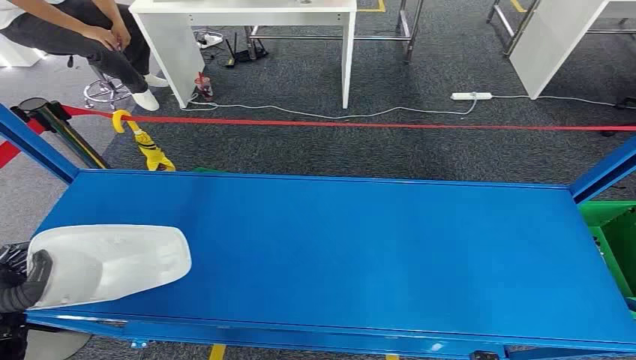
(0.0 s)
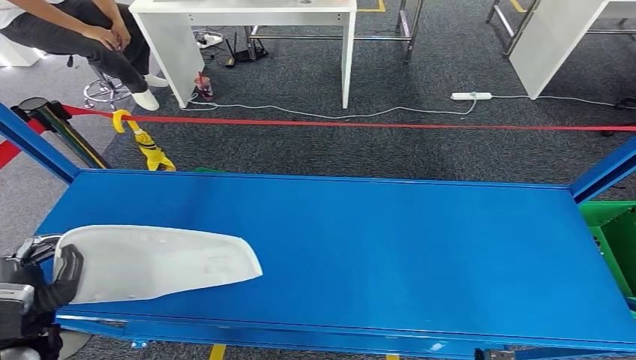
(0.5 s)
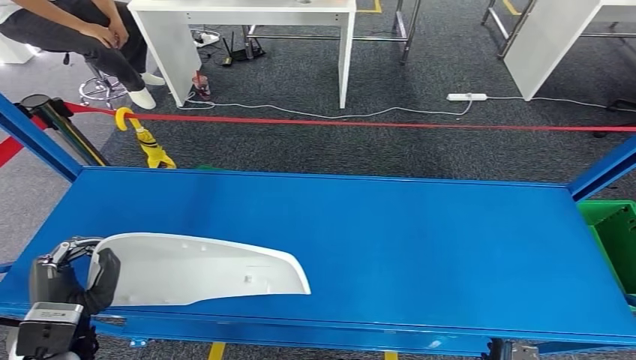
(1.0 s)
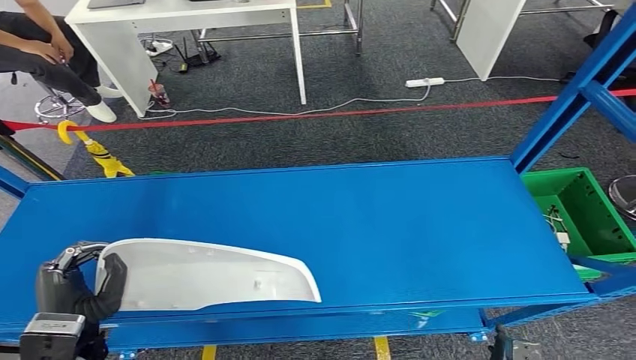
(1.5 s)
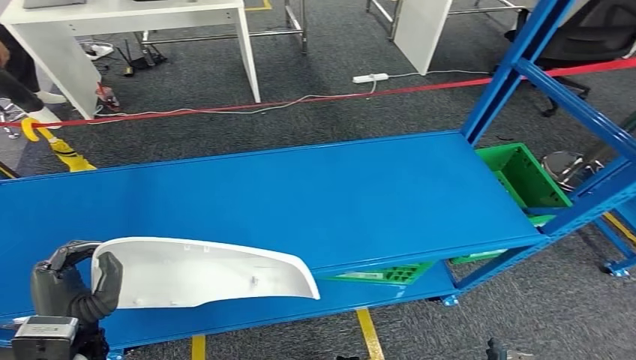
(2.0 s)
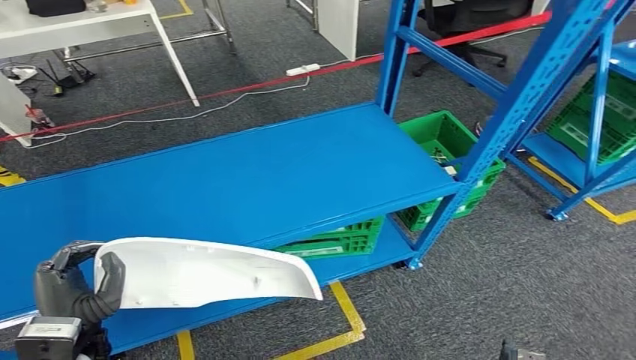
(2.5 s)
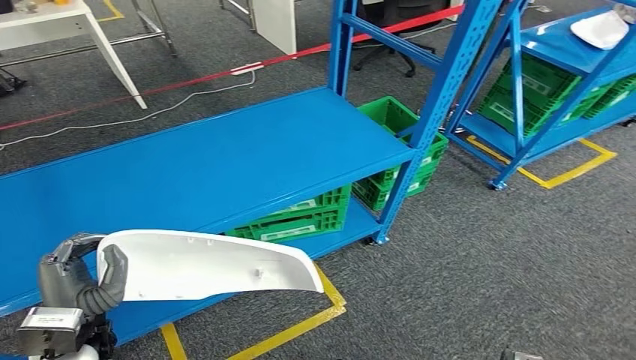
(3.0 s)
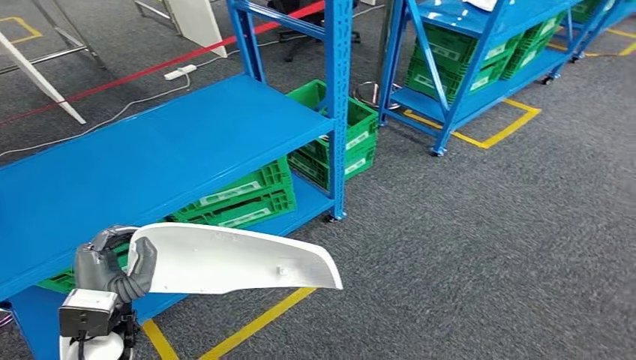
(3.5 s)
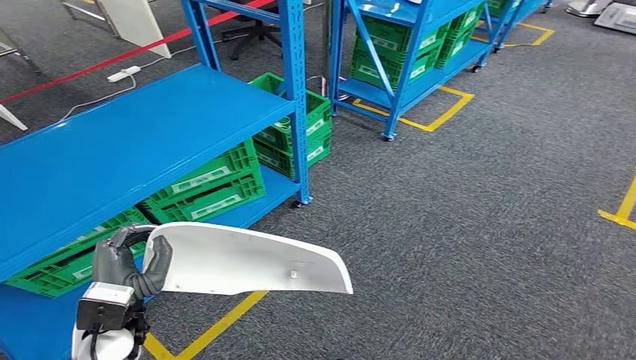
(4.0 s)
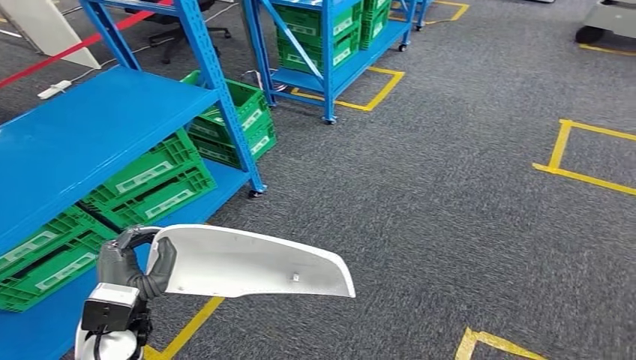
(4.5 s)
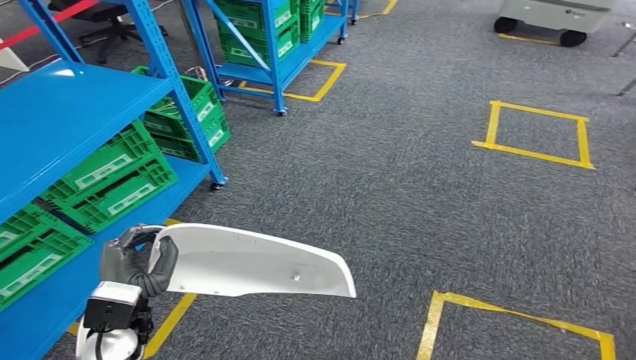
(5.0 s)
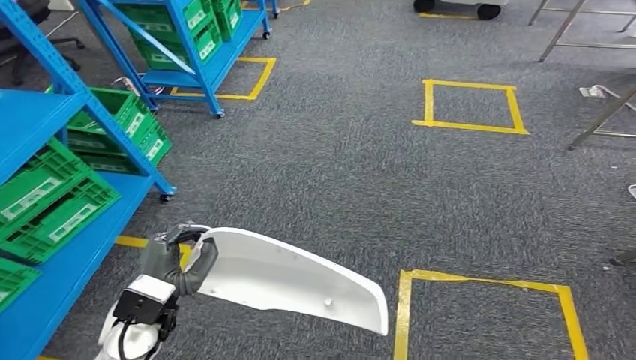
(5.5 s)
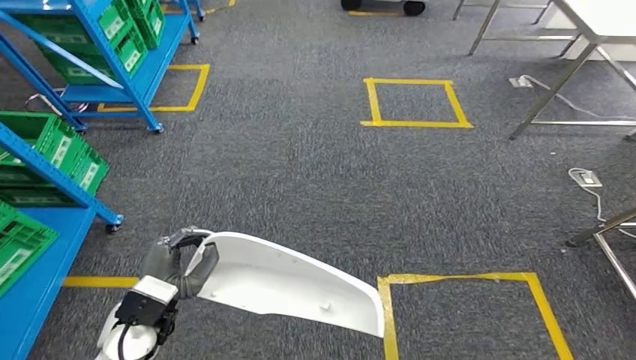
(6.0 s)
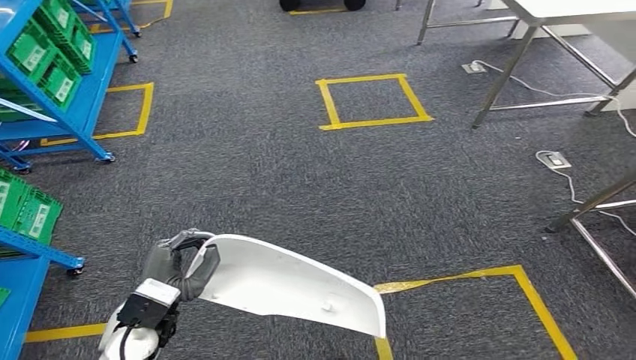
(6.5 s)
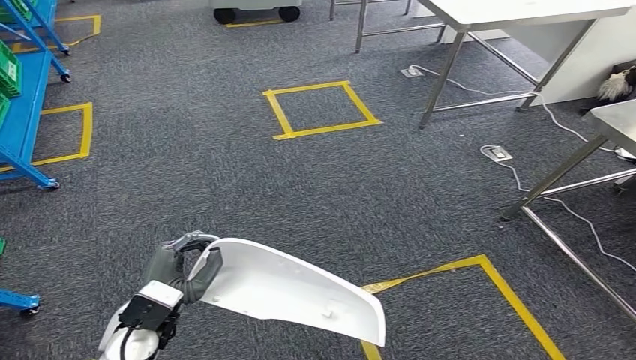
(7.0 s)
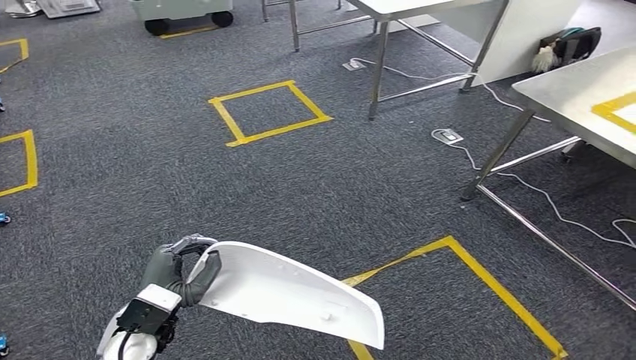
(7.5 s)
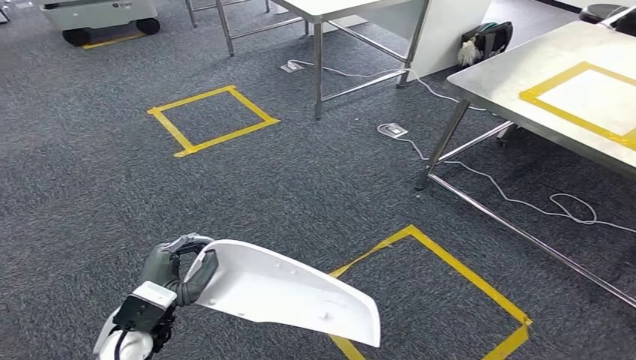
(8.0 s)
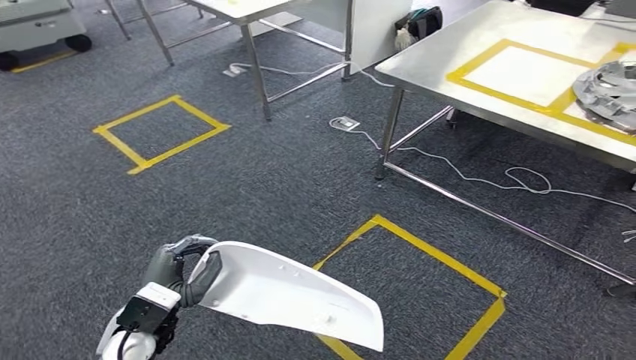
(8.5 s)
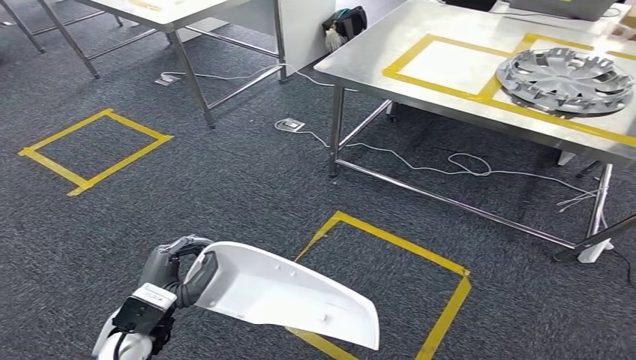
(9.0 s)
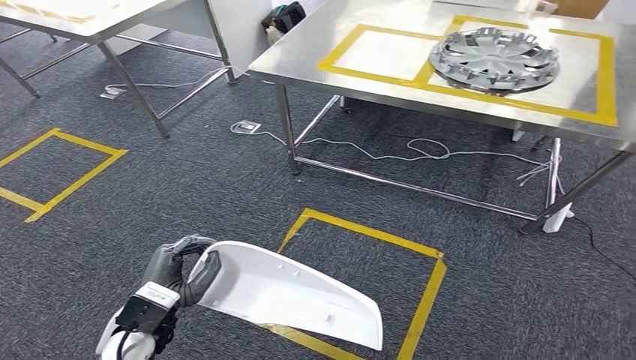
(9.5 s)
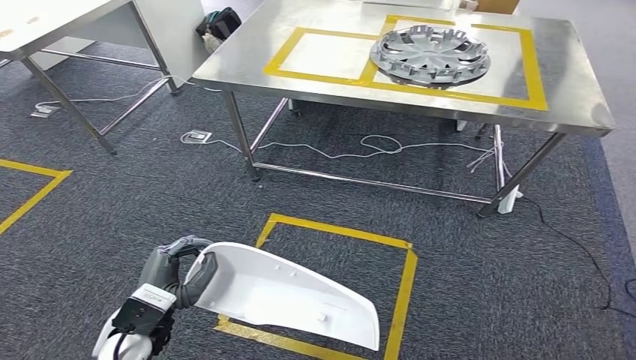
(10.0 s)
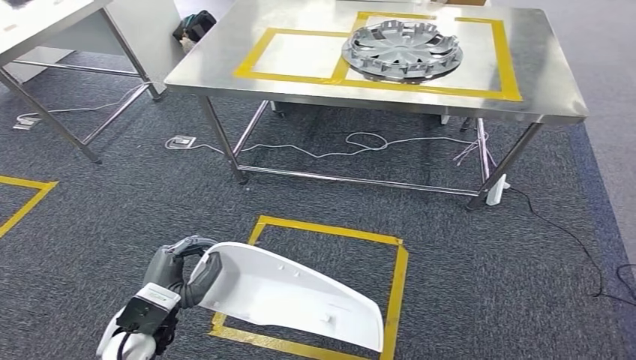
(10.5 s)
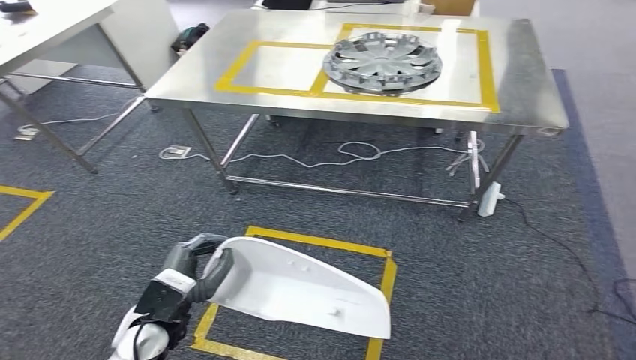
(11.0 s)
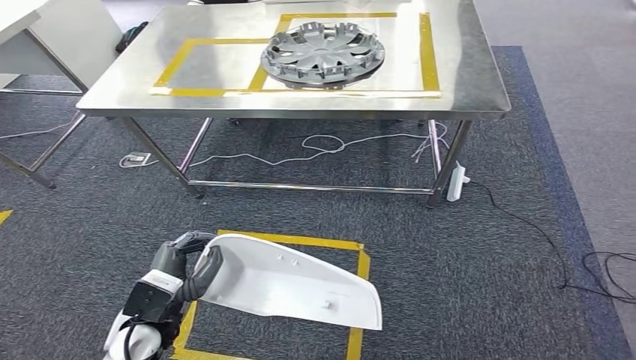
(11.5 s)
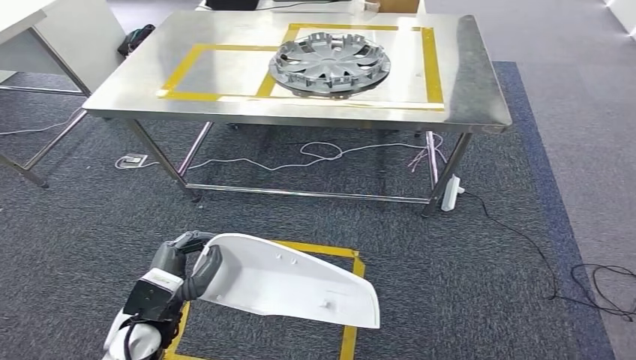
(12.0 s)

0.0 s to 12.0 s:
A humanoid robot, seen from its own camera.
Step, 0.0 to 2.0 s: Pick up the small parts from the shelf.
Step, 2.5 to 11.5 s: Move the small parts to the workbench.

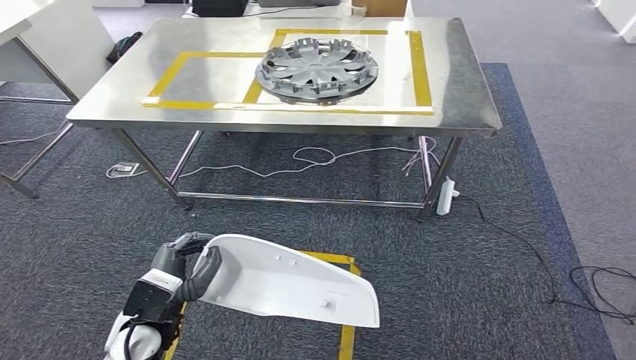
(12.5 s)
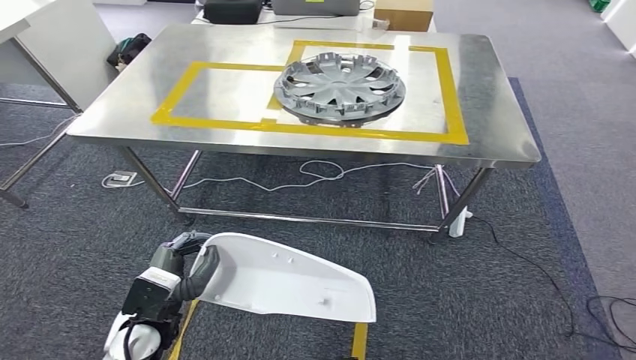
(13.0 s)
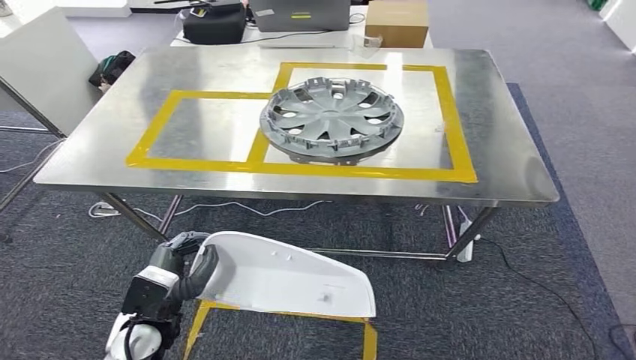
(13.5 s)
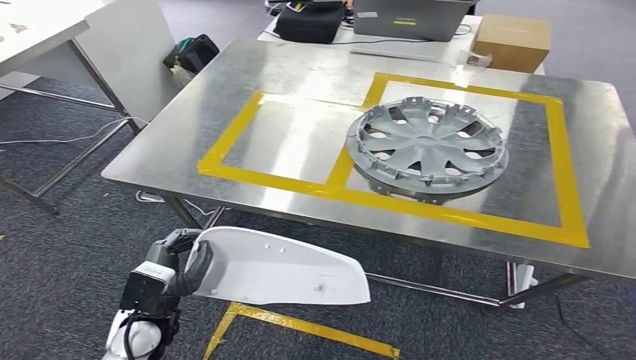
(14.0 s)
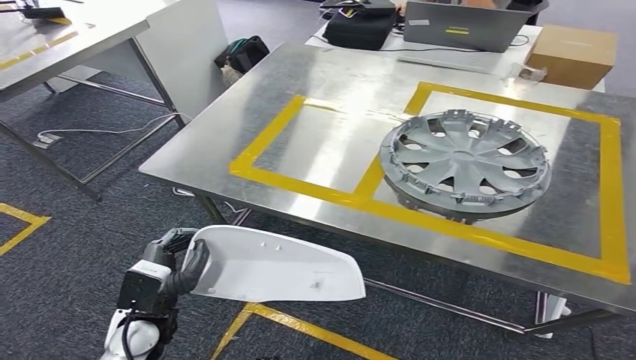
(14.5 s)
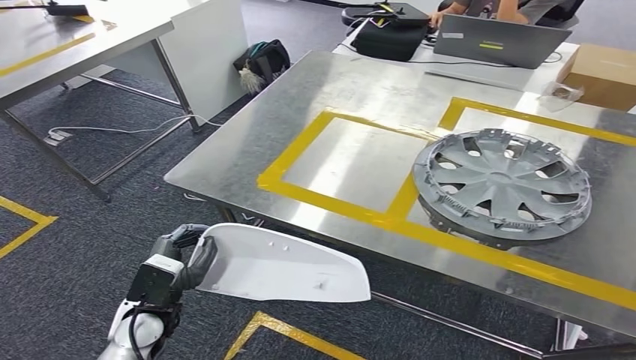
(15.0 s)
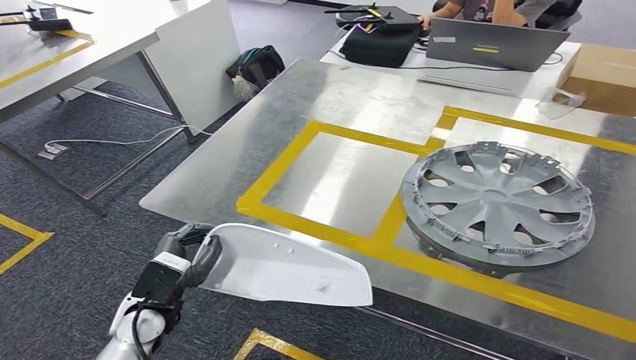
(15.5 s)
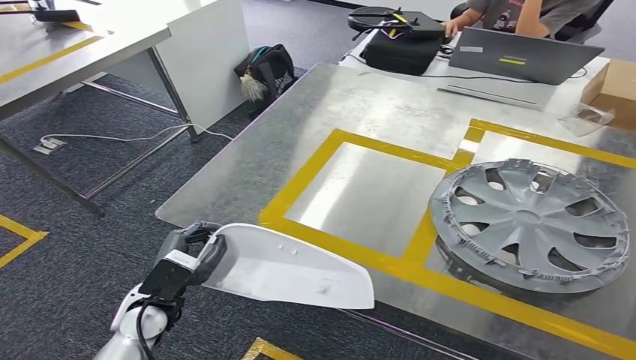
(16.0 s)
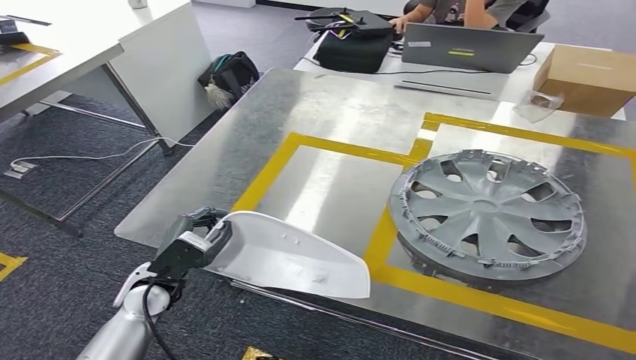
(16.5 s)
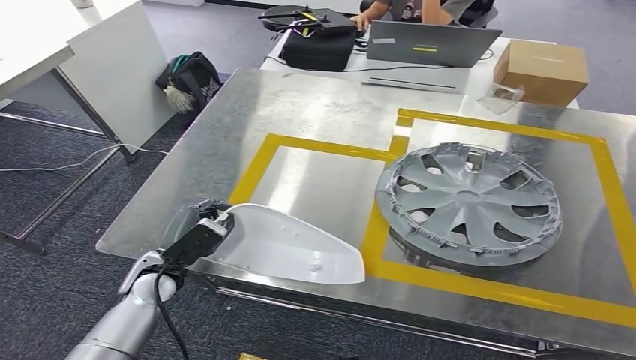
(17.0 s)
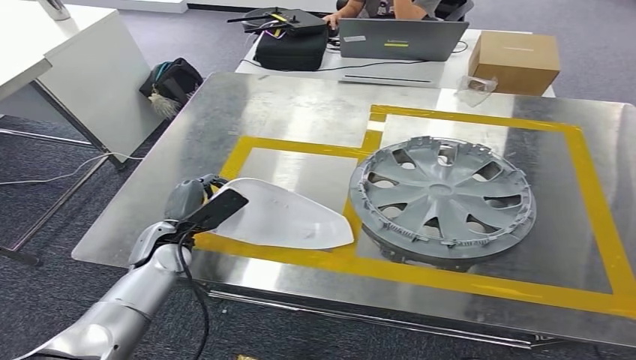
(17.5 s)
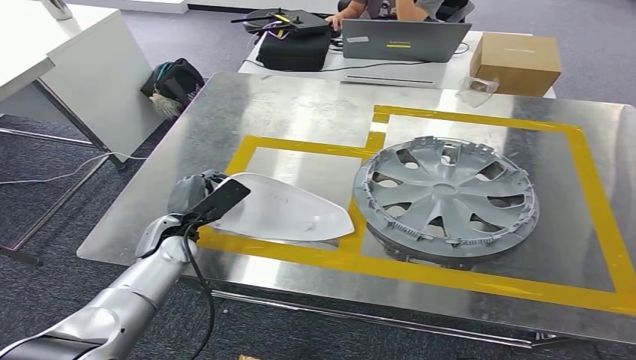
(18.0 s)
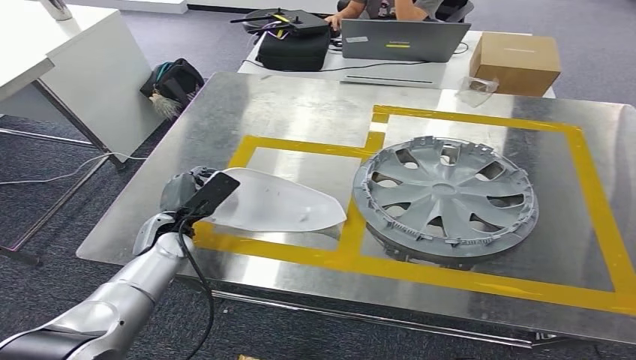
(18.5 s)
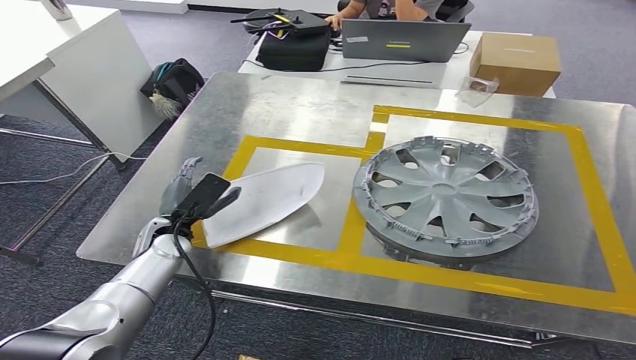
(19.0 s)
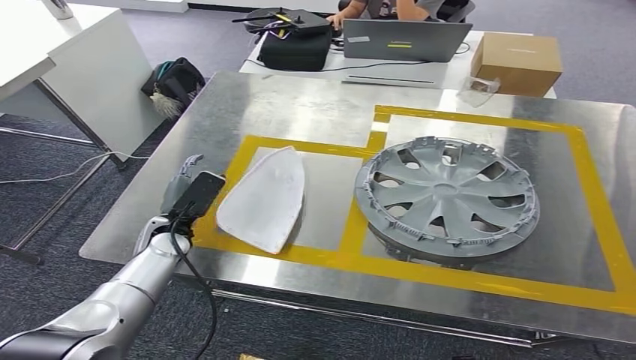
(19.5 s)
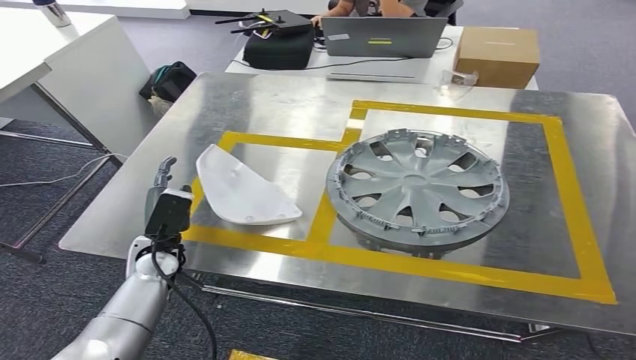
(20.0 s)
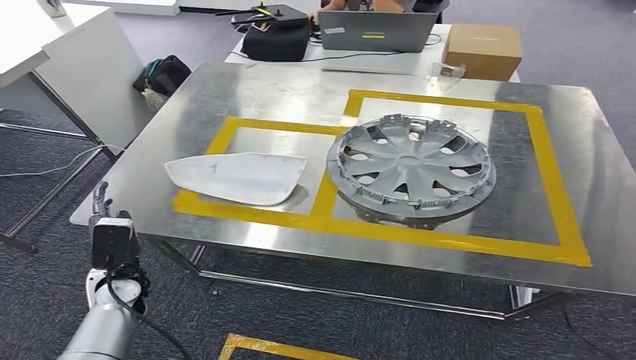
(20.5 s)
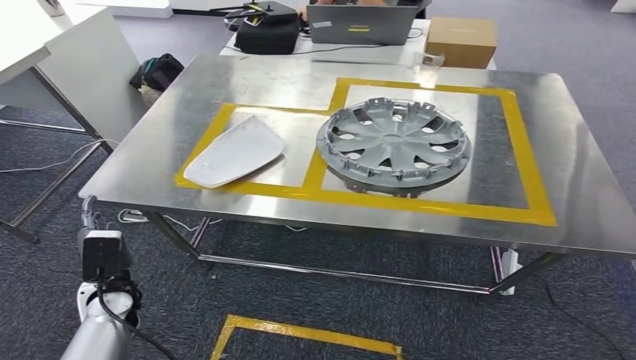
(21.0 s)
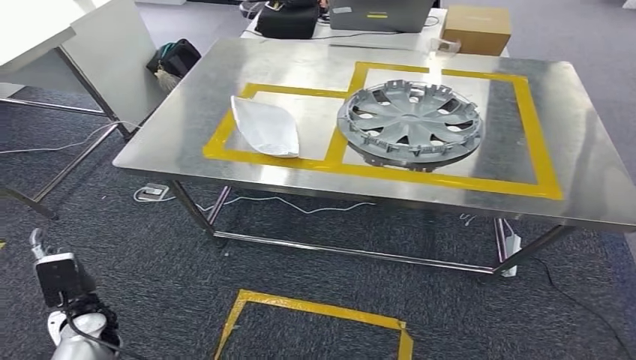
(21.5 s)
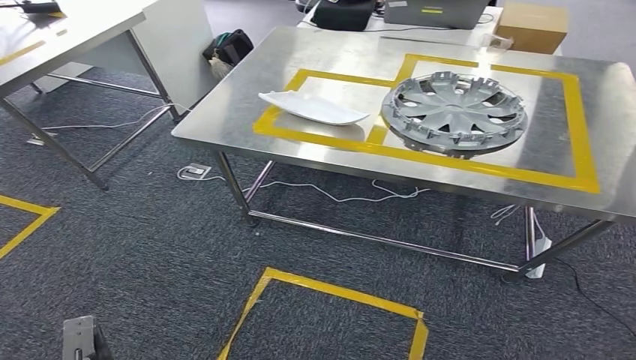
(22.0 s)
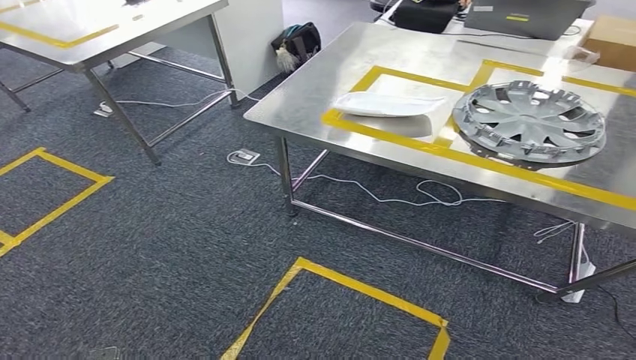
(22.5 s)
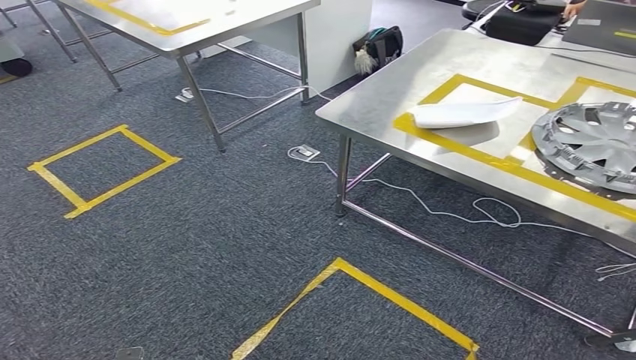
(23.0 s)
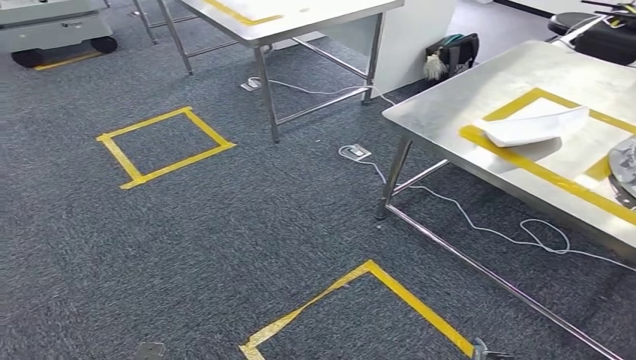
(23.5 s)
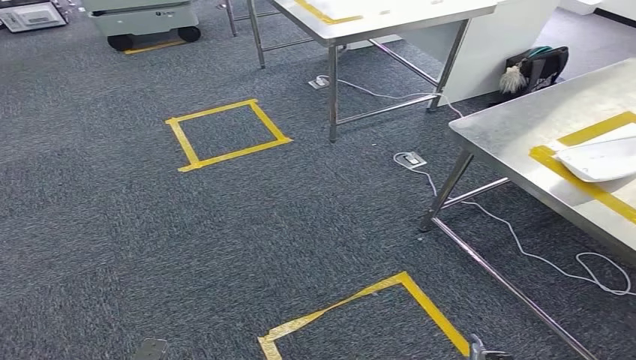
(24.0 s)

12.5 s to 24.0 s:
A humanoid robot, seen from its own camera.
Step, 12.5 to 20.0 s: Insert the small parts into the corresponding slots on the workbench.
